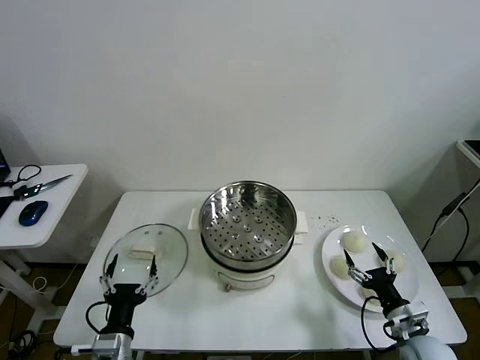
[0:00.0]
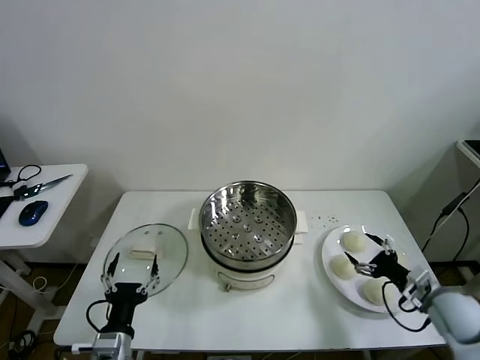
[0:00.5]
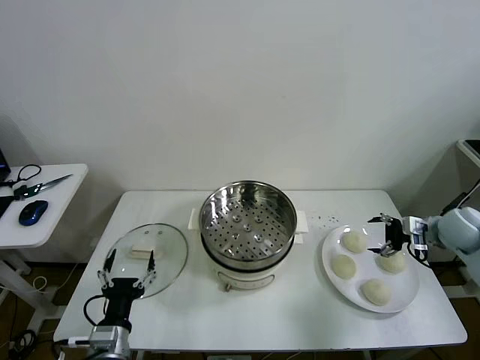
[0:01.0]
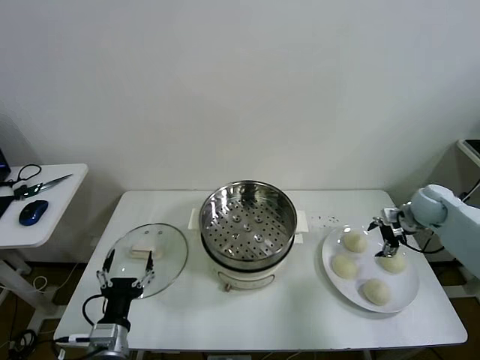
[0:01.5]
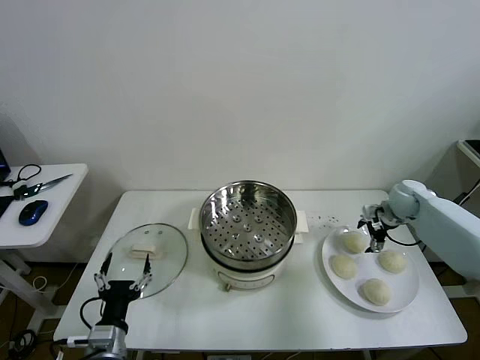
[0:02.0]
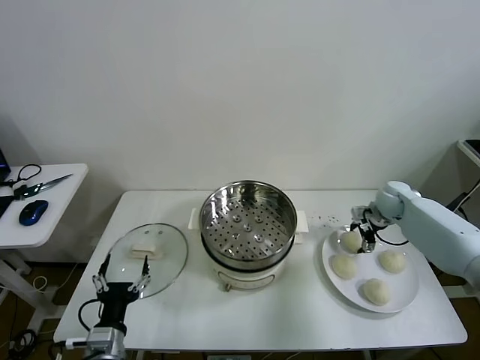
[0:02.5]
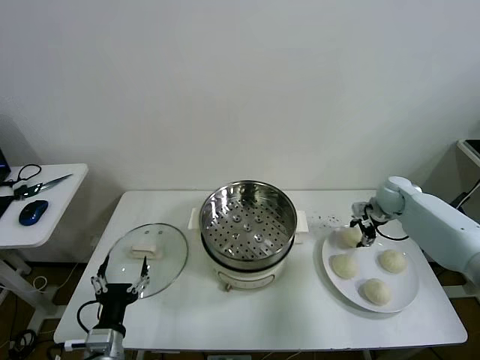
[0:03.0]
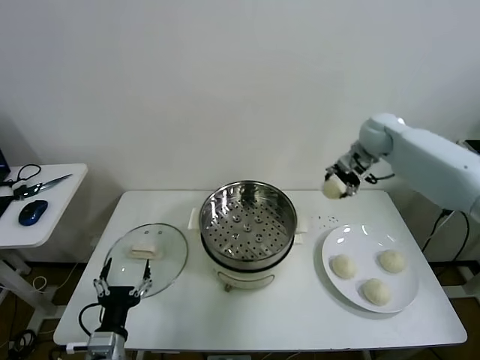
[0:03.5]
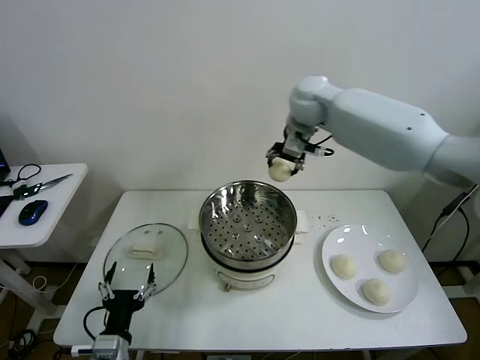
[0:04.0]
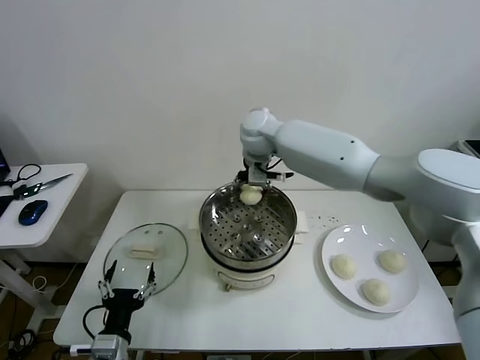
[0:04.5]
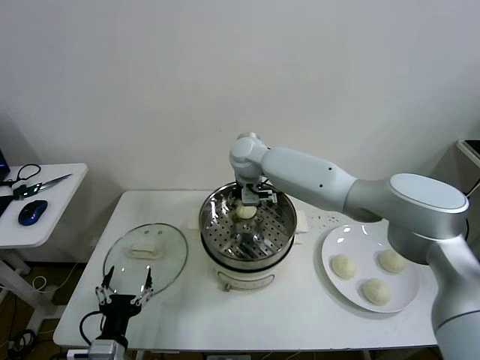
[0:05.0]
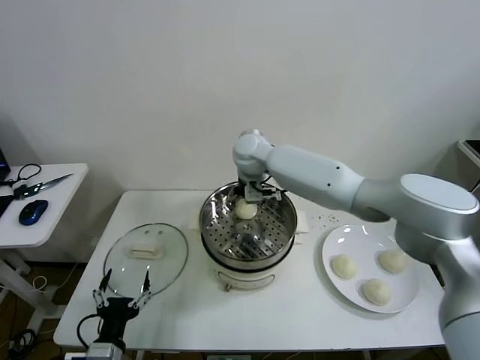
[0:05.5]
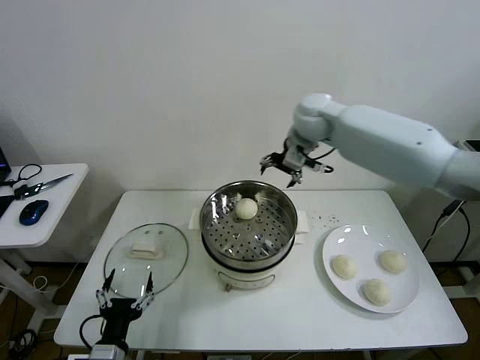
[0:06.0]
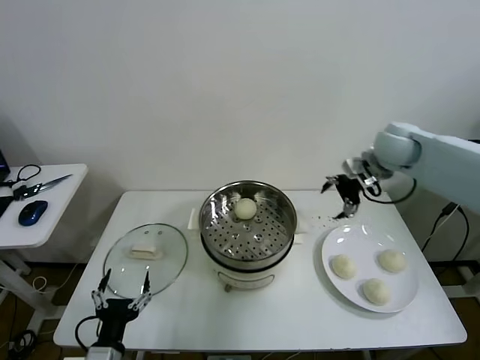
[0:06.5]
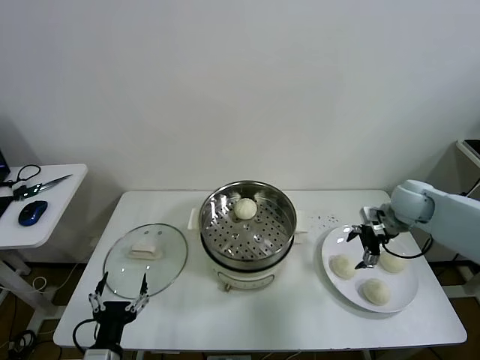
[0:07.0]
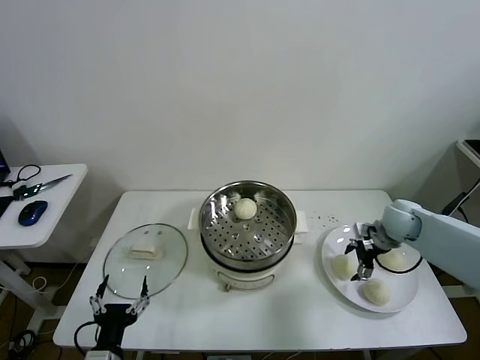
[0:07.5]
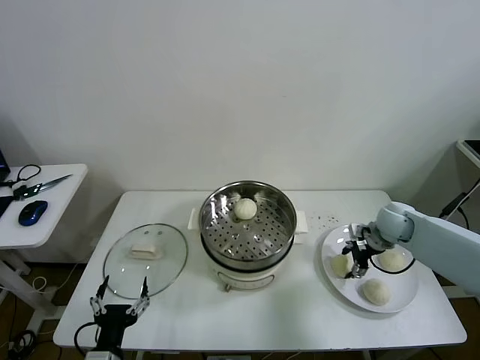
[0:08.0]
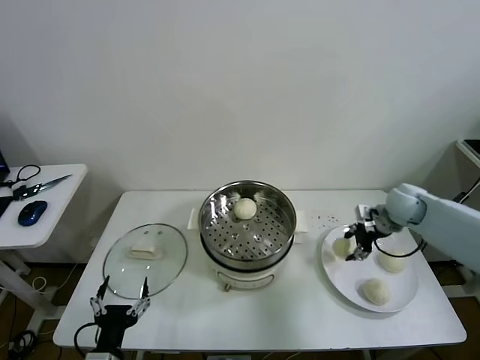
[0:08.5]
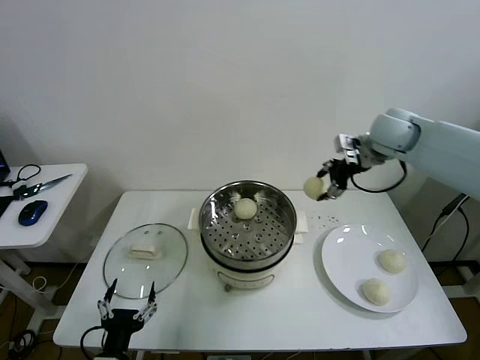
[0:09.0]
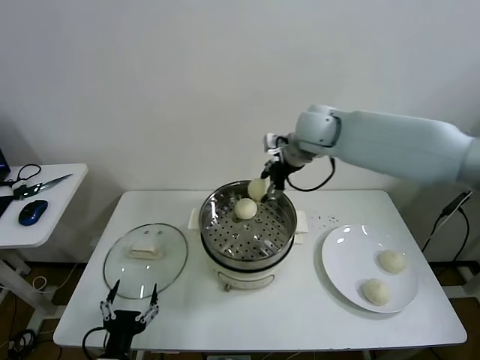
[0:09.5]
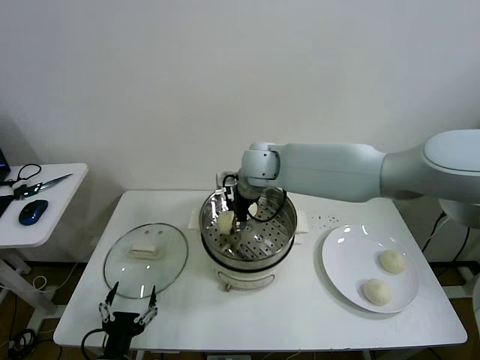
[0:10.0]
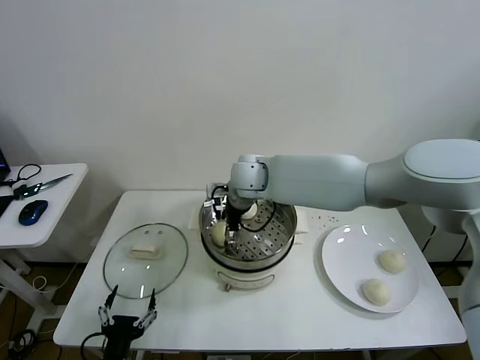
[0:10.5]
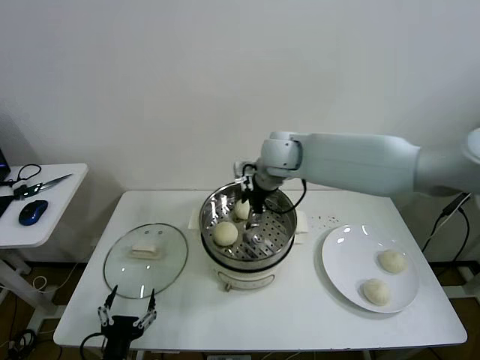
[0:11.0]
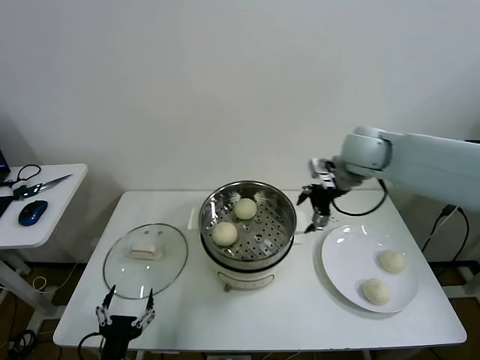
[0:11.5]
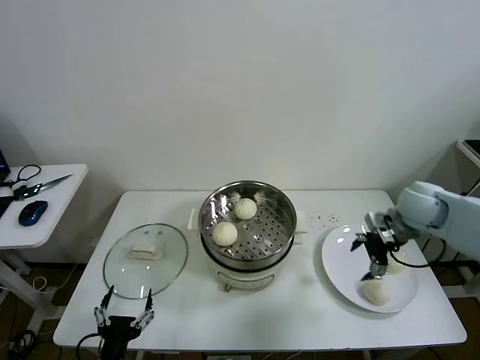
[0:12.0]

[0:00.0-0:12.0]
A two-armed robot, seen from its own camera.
Task of the whole recording: take steamed baozi put them in steamer then cover it.
Step, 0:00.0 to 0:02.5: Grasp the baozi in the plate with right gripper.
Step, 0:03.0 to 0:05.0: Place the baozi on the steamer with right gripper.
Step, 0:05.5 to 0:08.0: Grasp the baozi in the plate with right gripper.
Step, 0:08.5 to 0:10.5: Place the baozi on the steamer with right gripper.
0:02.0 to 0:04.0: The right gripper goes roughly 40 cm to the left and upward, and closes.
0:04.0 to 0:06.0: The right gripper moves to the right, approximately 10 cm, and opens its fingers.
0:06.0 to 0:08.0: The right gripper goes some 30 cm downward and to the right, and closes up.
0:08.0 to 0:10.0: The right gripper heads to the left and upward, covering roughly 40 cm.
0:10.0 to 0:12.0: The right gripper heads to the right, covering about 35 cm, and opens.

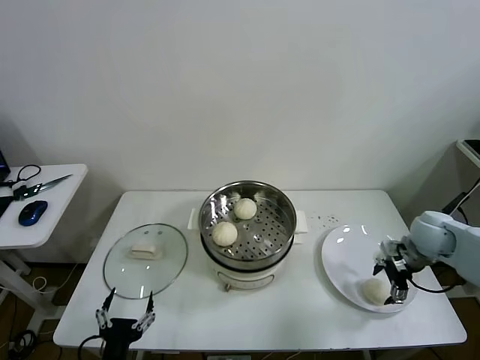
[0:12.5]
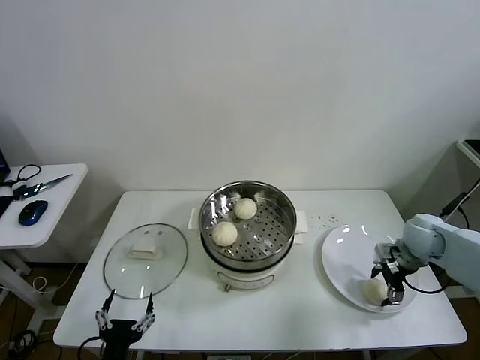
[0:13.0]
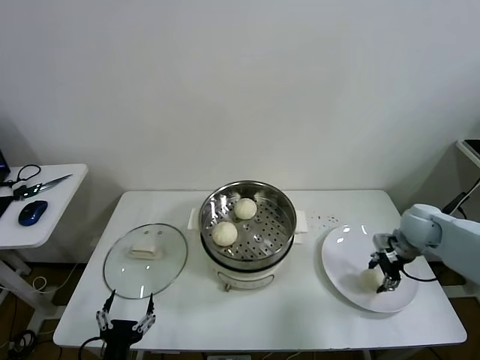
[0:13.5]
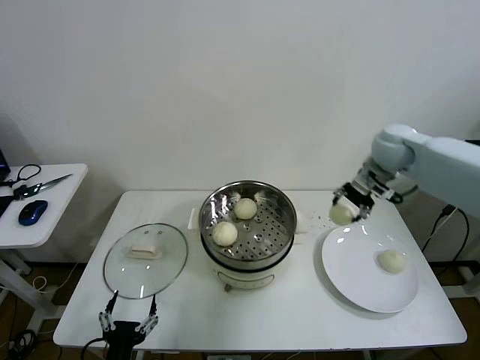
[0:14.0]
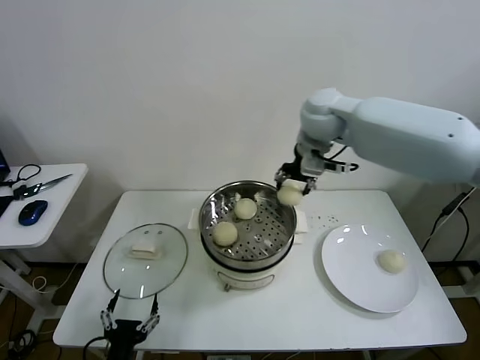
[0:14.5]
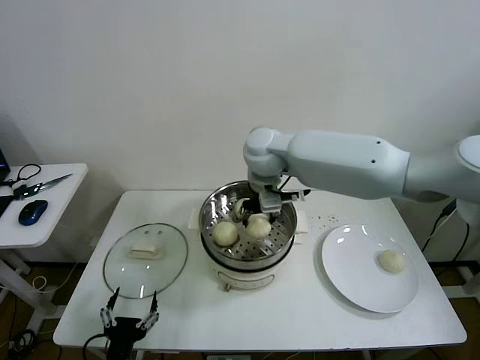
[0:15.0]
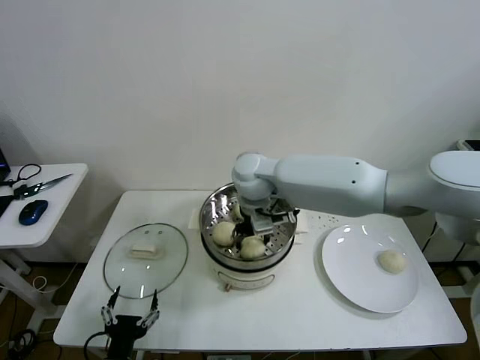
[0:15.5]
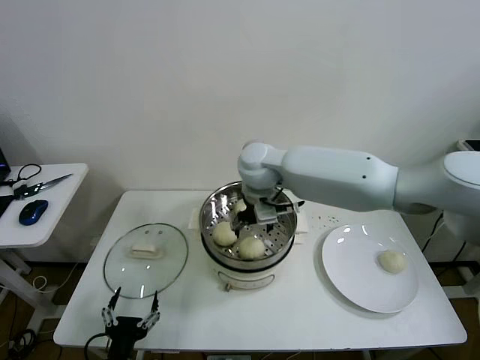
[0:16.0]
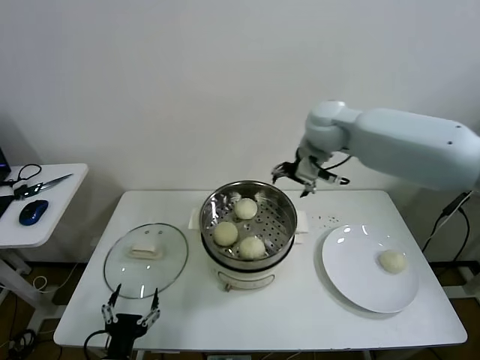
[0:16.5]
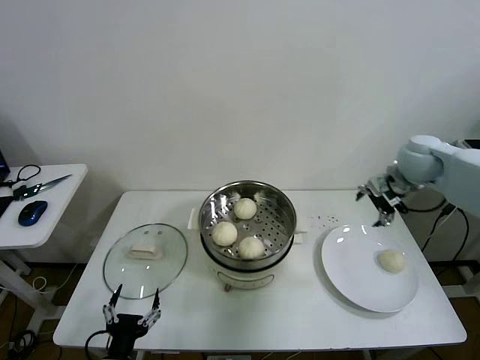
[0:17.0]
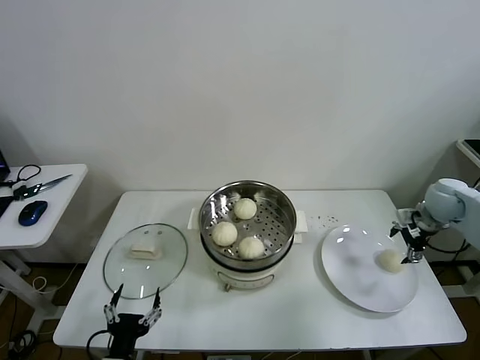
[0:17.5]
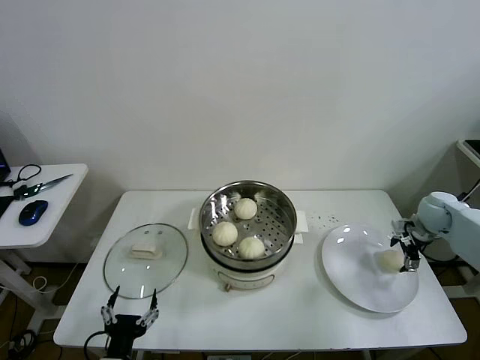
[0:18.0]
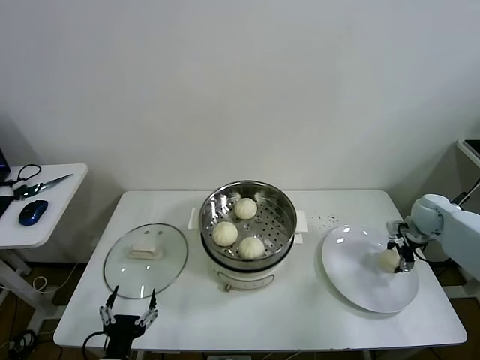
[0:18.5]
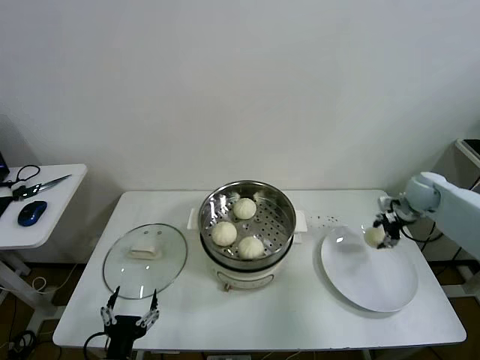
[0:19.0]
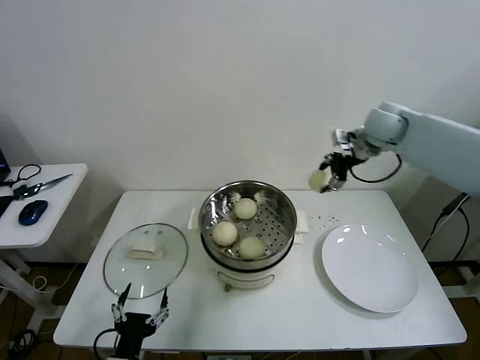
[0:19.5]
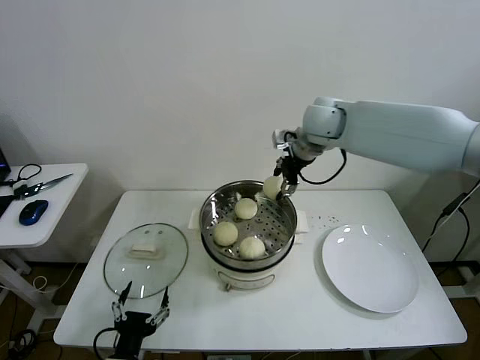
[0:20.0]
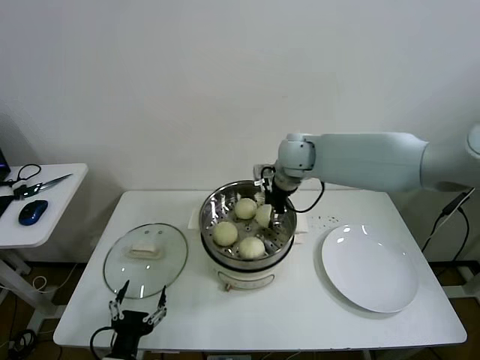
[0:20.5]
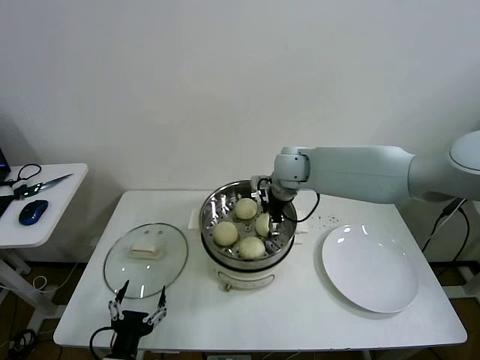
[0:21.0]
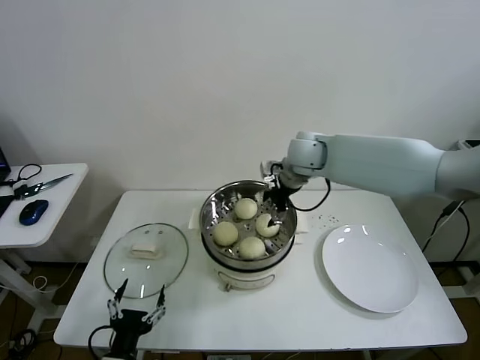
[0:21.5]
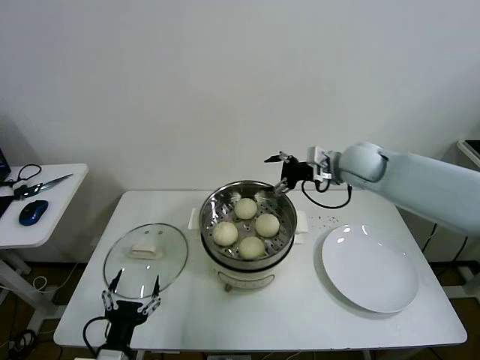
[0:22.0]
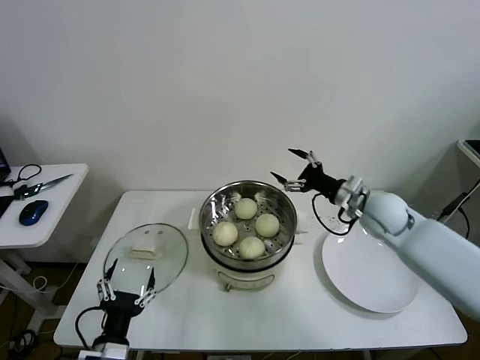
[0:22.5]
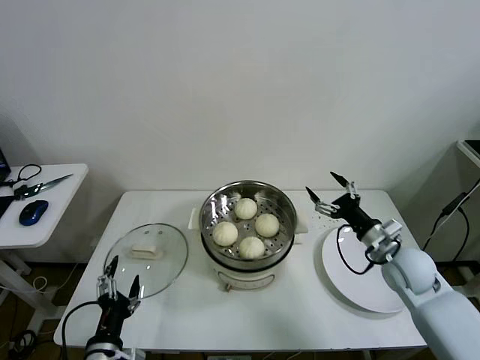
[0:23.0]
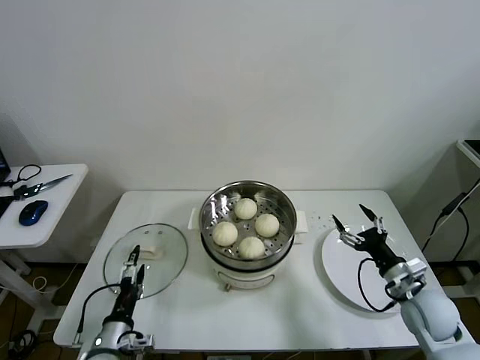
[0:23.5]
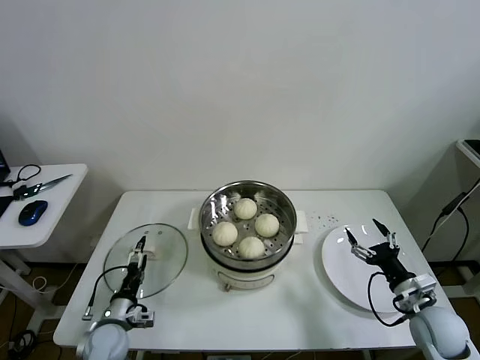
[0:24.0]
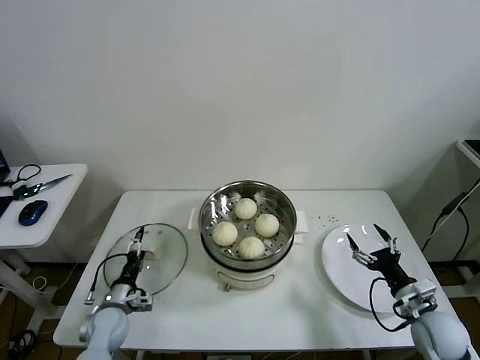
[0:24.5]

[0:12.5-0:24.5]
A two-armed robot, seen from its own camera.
Task of the whole recording: take steamed baozi put them in steamer then cover it.
Step, 0:13.5 to 0:15.5: Place the baozi on the steamer with right gripper.
Step, 0:16.0 to 0:18.5: Grasp the baozi in the plate with right gripper.
Step, 0:19.0 to 0:21.0: Place the baozi on the steamer with right gripper.
0:12.5 to 0:14.5: The right gripper moves to the left and upward, about 40 cm, and closes.
0:14.5 to 0:16.5: The right gripper goes to the left and returns, about 10 cm each way, and opens its fingers.
0:16.5 to 0:18.5: The right gripper is displaced to the right and downward by approximately 40 cm, and closes up.
0:18.5 to 0:20.5: The right gripper travels to the left and upward by some 40 cm.
0:20.5 to 0:22.5: The right gripper goes roughly 25 cm to the right, downward and backward, and opens up.
0:22.5 to 0:24.5: The right gripper heads backward, downward and to the right, covering roughly 25 cm; the left gripper moves forward, downward and to the left, about 20 cm.

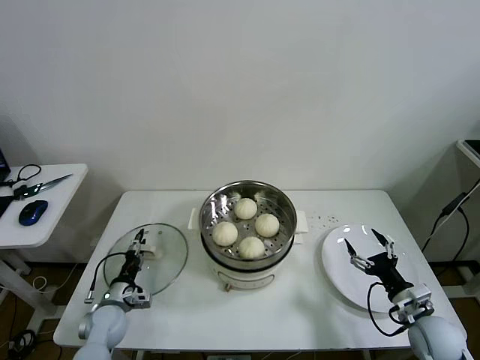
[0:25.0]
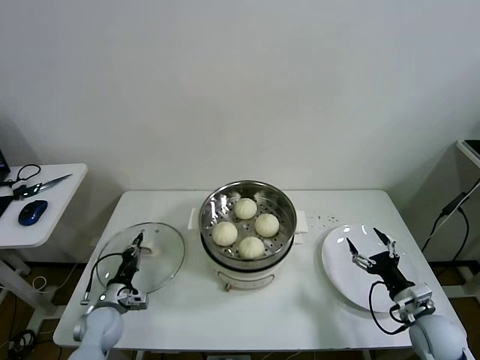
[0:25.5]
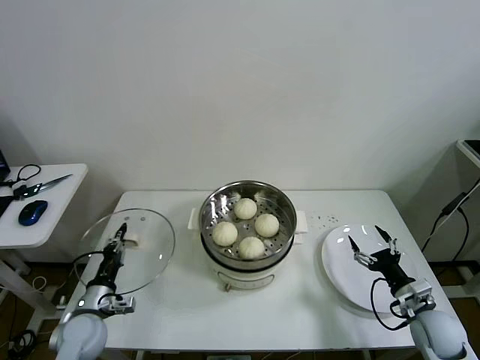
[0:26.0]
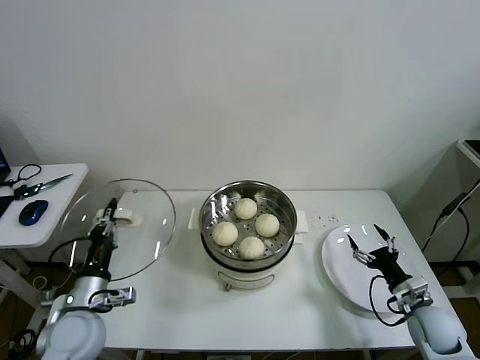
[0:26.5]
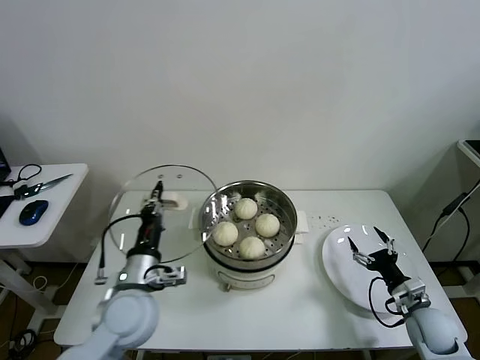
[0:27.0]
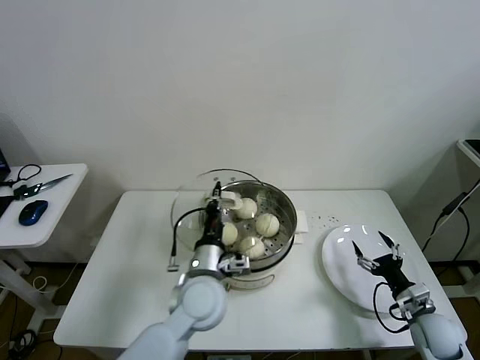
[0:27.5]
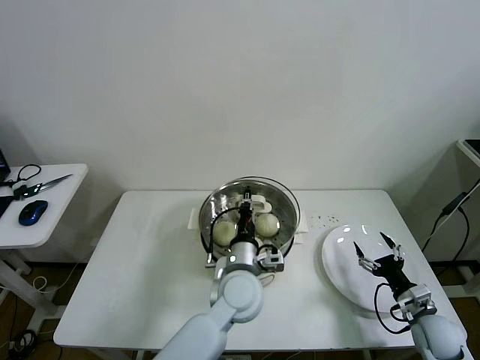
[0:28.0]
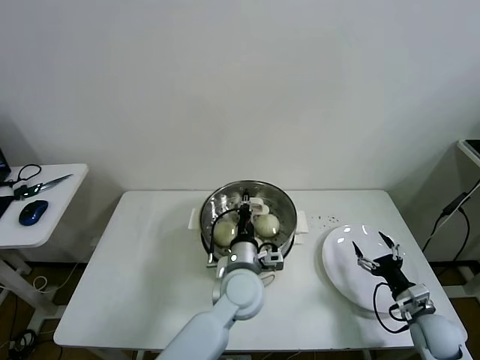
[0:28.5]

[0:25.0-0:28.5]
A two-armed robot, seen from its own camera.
Task of the whole recording: take steamed baozi put them in steamer then cover it.
0:25.0 to 0:27.0: The left gripper shifts approximately 25 cm upward and to the right, and closes its fingers.
0:27.0 to 0:28.5: The left gripper travels to the right by approximately 20 cm.
